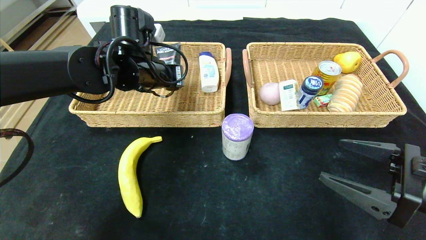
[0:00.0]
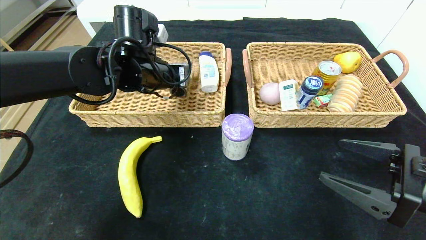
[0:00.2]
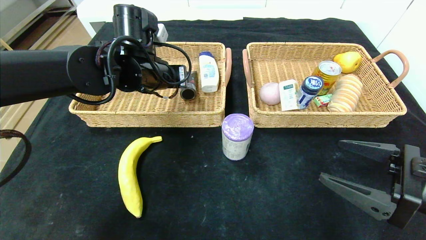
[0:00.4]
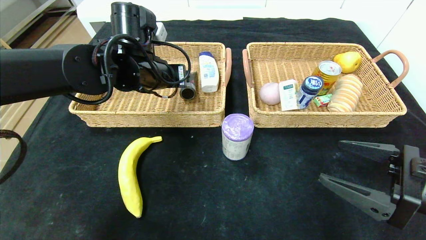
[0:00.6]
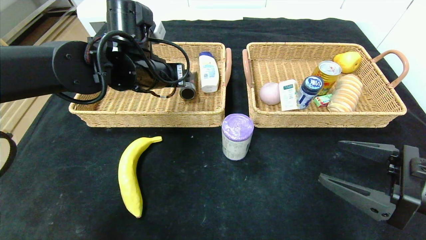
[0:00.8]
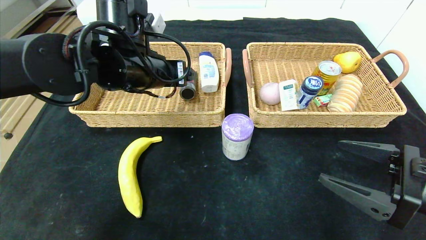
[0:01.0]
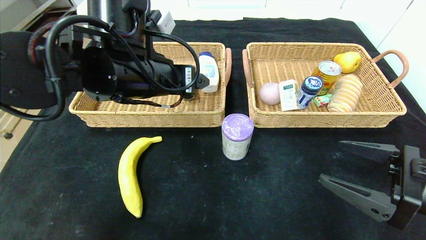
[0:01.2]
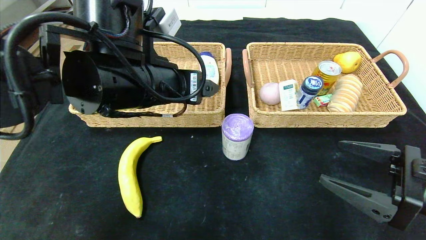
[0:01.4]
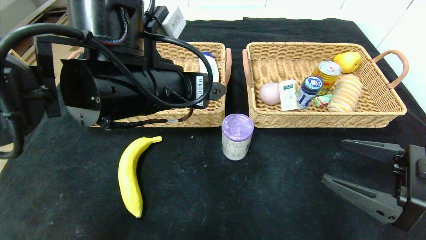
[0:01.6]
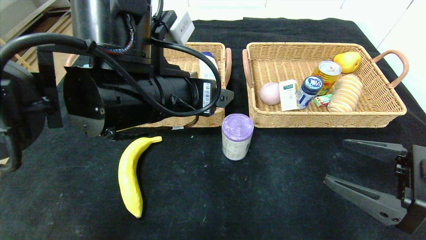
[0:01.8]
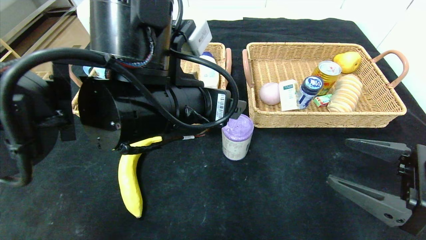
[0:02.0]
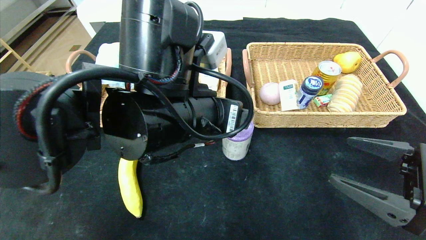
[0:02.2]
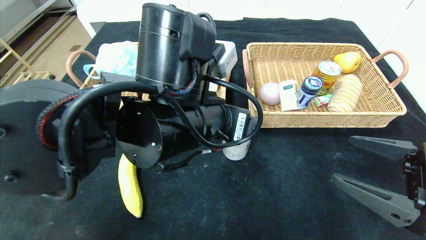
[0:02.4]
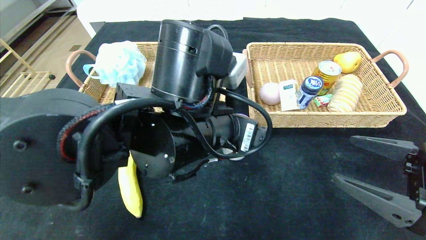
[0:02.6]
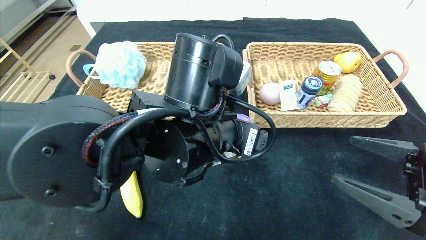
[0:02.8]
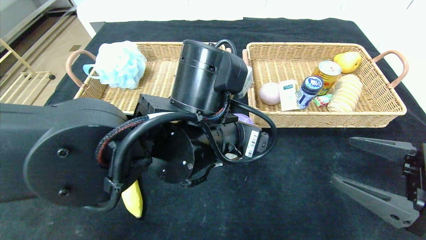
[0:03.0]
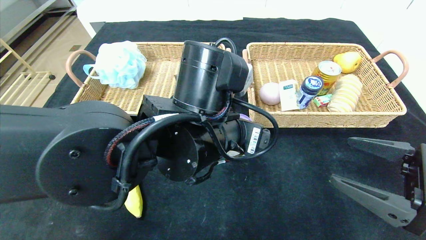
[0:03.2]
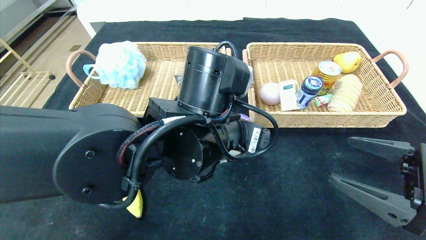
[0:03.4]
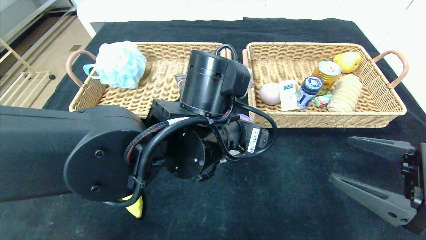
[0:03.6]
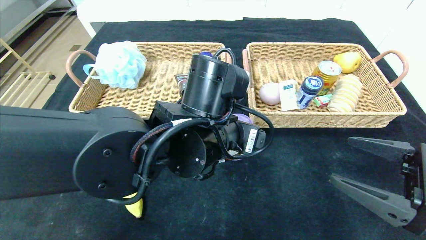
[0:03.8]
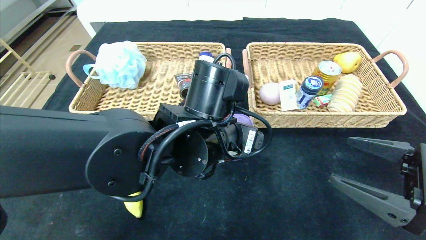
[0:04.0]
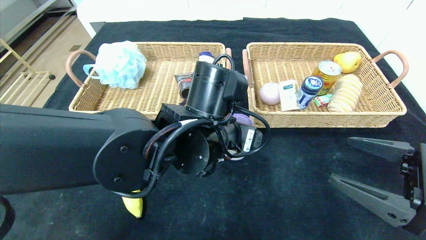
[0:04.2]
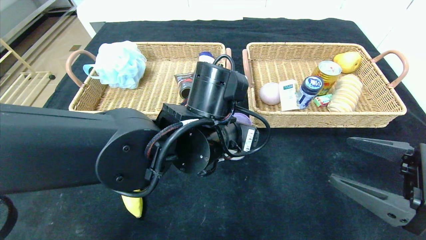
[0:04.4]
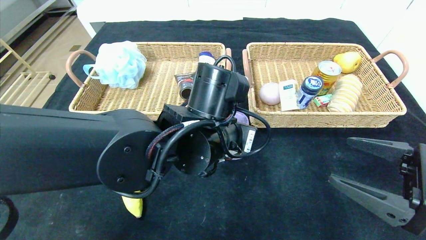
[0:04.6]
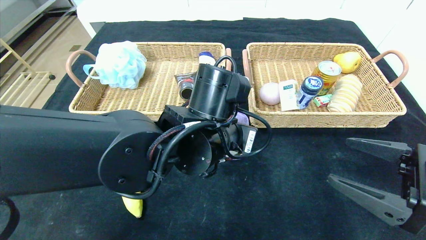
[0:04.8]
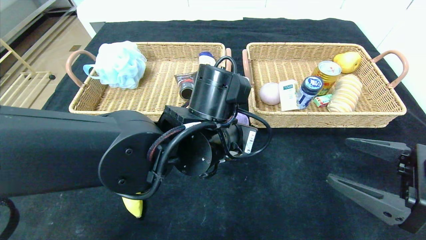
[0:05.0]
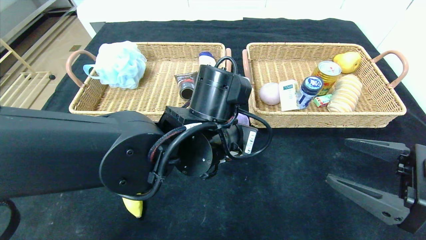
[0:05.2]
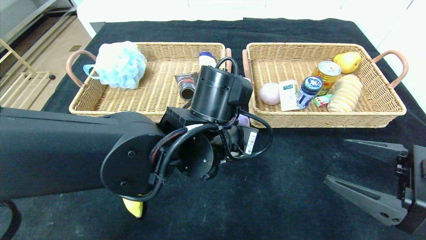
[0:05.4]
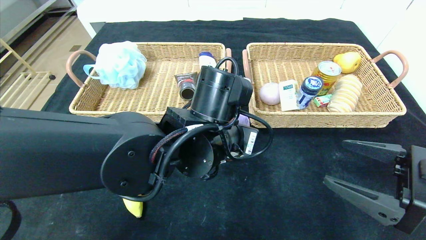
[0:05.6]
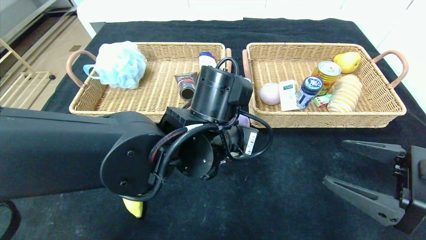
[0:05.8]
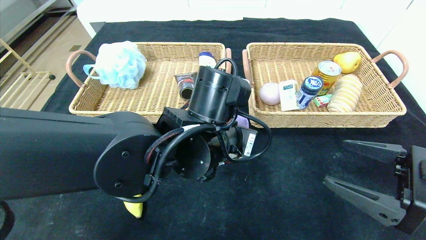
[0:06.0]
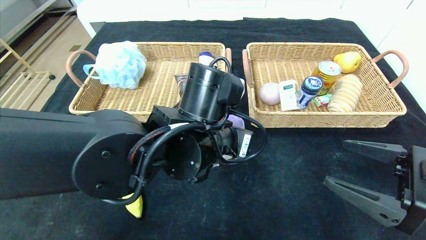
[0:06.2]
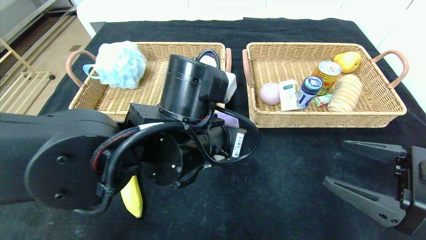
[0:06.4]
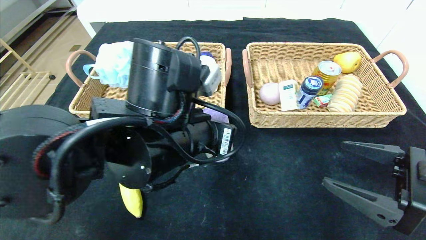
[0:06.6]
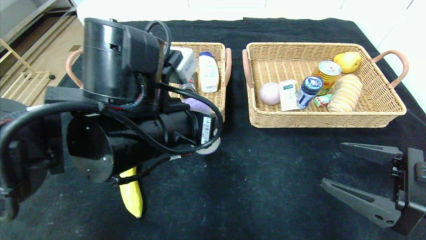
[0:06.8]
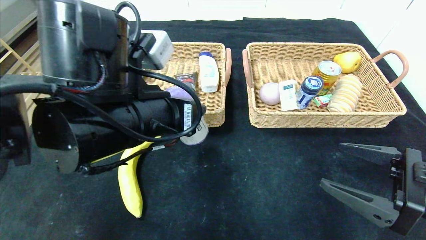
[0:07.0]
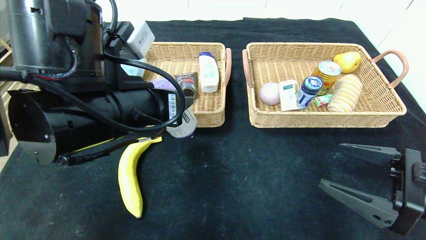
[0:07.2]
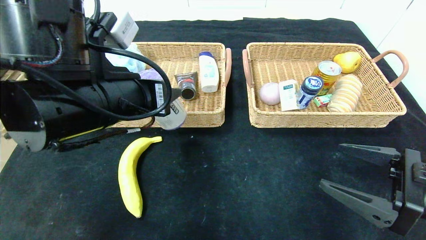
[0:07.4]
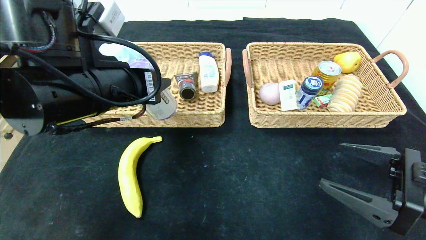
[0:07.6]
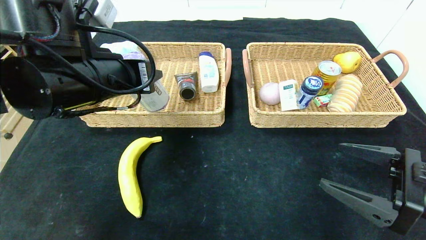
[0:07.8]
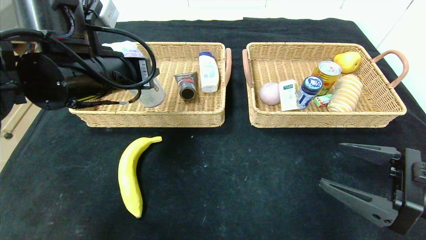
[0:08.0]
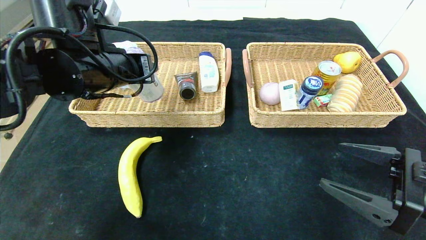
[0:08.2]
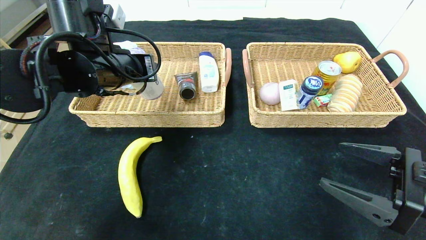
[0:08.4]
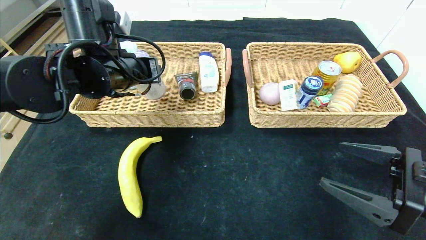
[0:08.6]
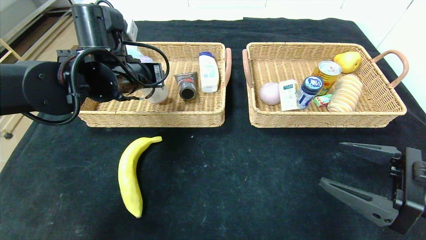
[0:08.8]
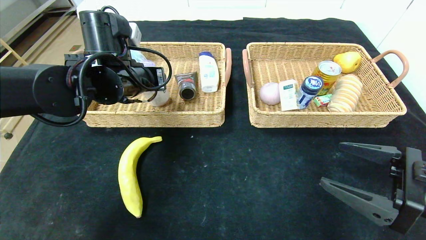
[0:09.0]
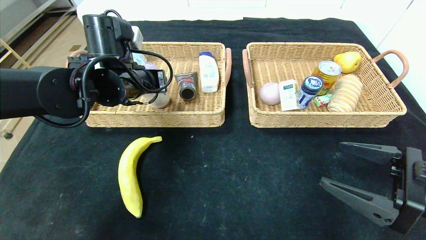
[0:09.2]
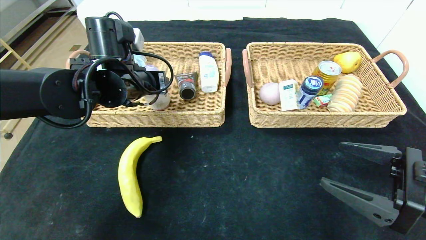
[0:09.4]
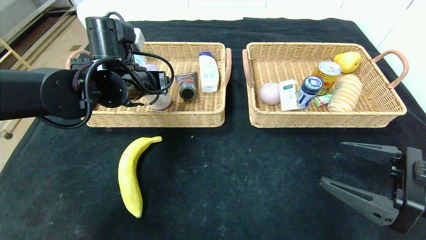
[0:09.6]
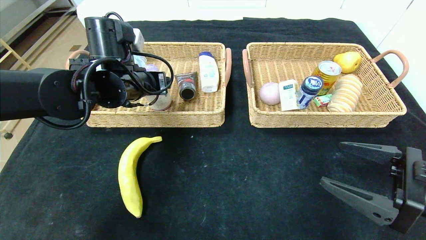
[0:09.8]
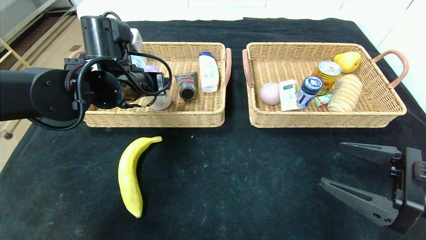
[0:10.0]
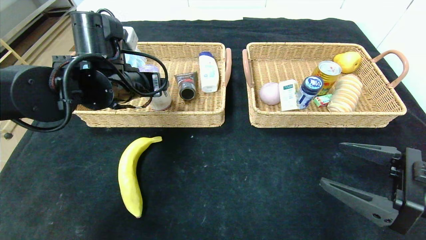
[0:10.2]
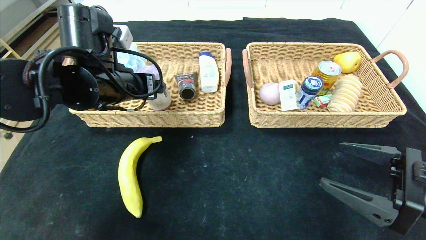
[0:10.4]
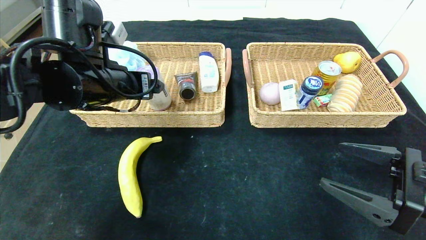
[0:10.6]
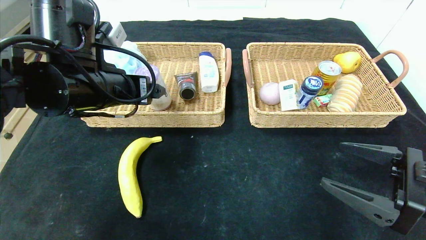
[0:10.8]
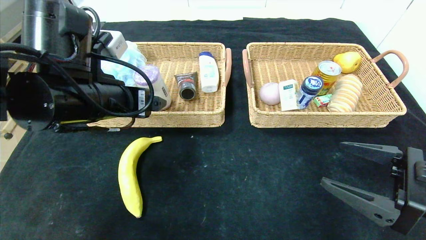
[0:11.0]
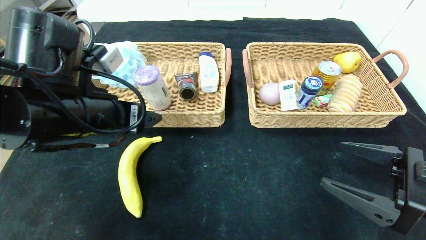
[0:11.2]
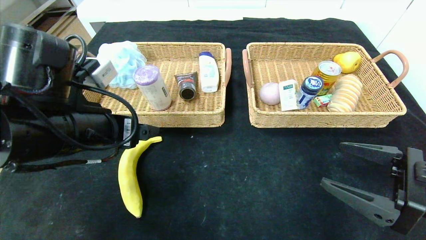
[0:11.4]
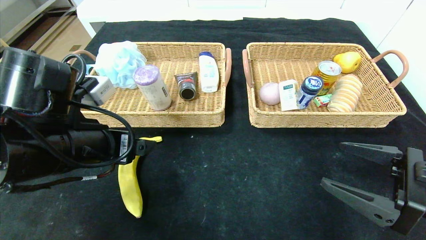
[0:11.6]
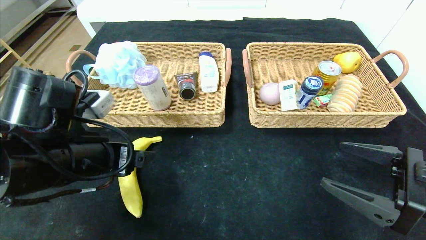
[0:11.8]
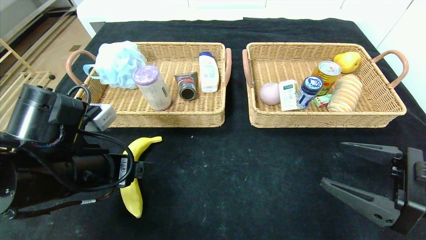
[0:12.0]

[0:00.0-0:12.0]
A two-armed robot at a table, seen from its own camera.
Step, 0:00.6 to 0:10.2: Grasp the purple garbage bag and put it in the left basket.
0:00.0 to 0:01.6: The left gripper goes some 15 cm backward, and opens up.
0:01.6 to 0:03.0: The left gripper travels to the right and downward by approximately 10 cm.
0:03.0 to 0:04.4: The grippers move only a little.
0:04.4 to 0:06.0: Both grippers stay about where they are.
0:06.0 to 0:07.6: The left gripper travels to the left and upward by approximately 15 cm.
0:07.6 to 0:09.0: The left gripper is displaced forward by approximately 10 cm.
0:09.0 to 0:10.4: The left gripper opens.
0:10.4 to 0:12.0: The left gripper moves backward and downward, roughly 15 cm.

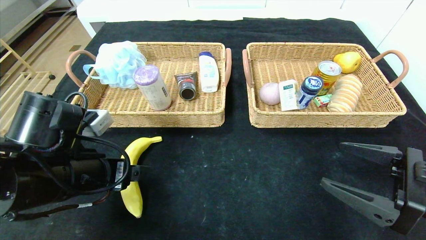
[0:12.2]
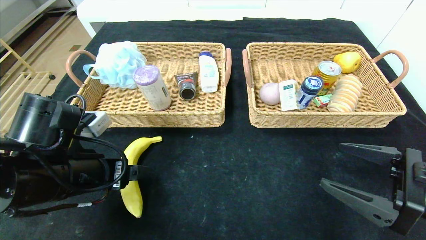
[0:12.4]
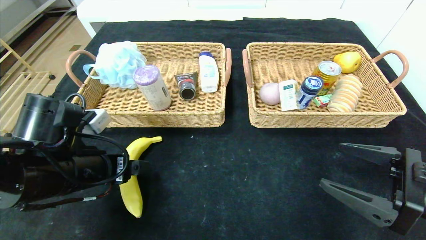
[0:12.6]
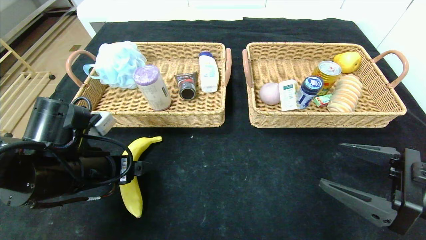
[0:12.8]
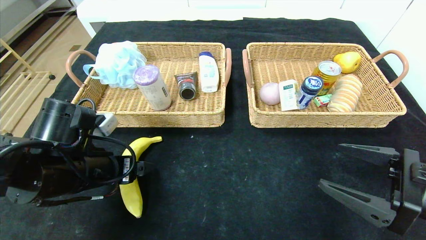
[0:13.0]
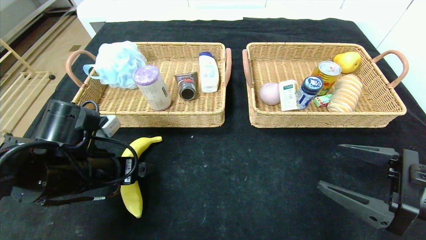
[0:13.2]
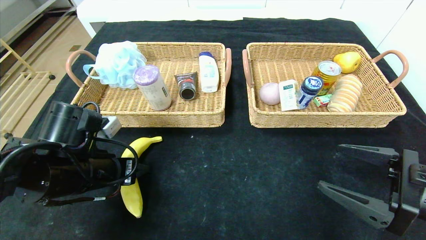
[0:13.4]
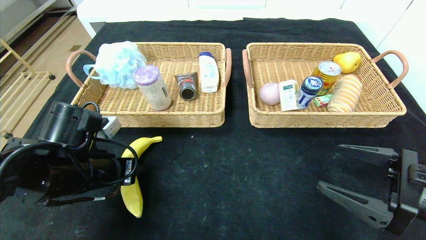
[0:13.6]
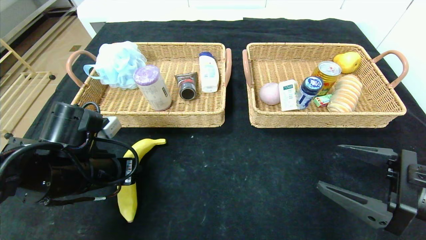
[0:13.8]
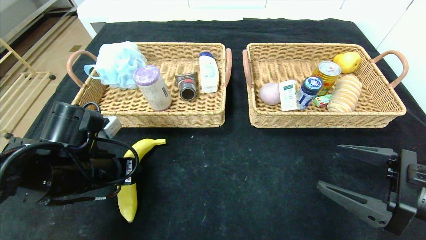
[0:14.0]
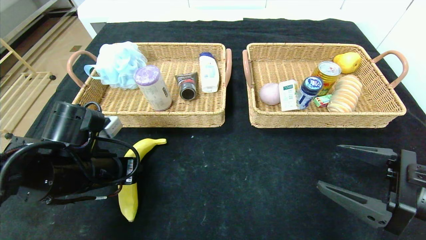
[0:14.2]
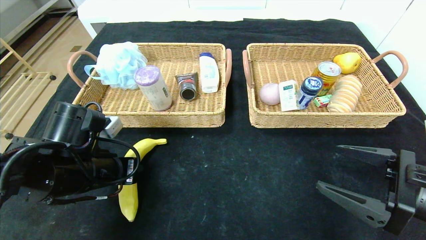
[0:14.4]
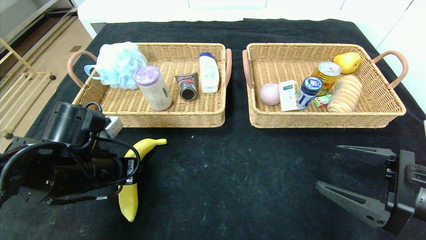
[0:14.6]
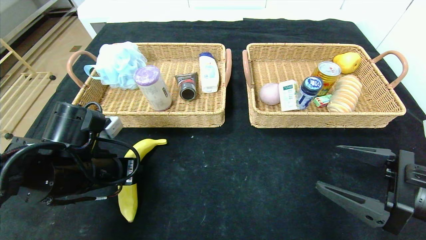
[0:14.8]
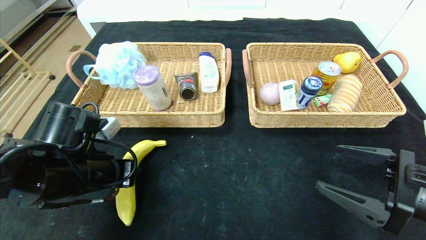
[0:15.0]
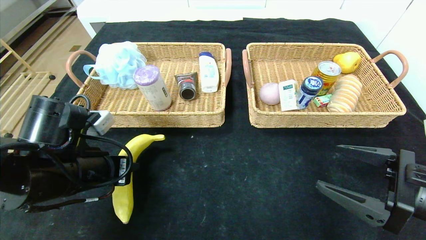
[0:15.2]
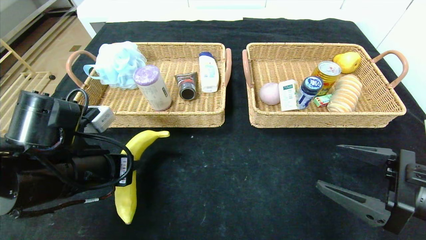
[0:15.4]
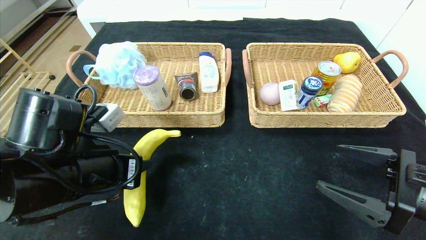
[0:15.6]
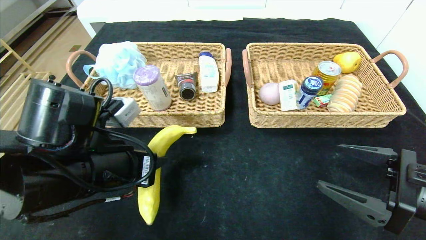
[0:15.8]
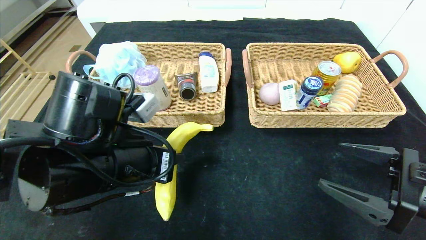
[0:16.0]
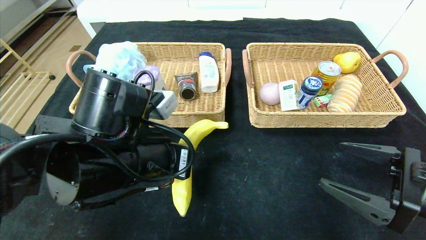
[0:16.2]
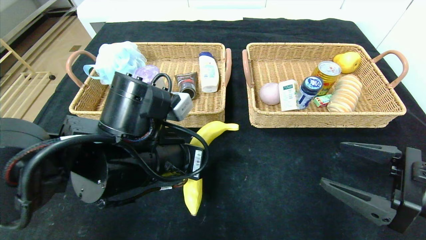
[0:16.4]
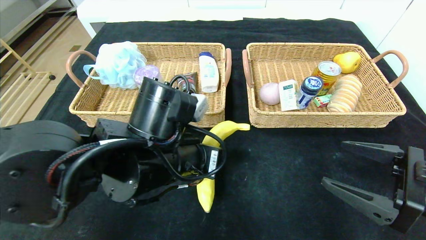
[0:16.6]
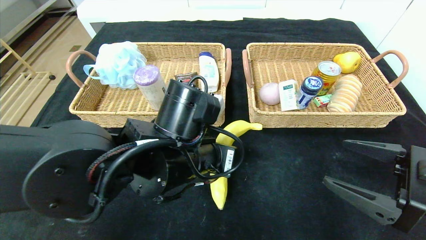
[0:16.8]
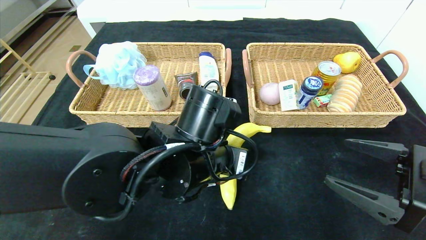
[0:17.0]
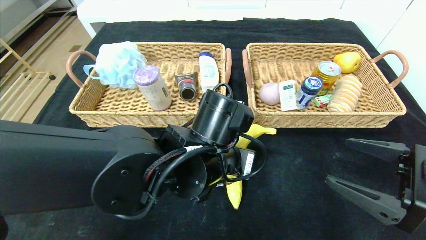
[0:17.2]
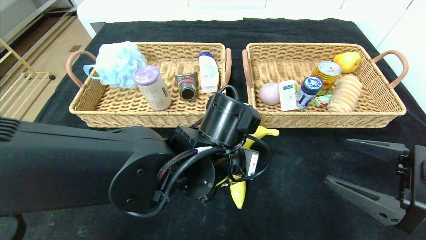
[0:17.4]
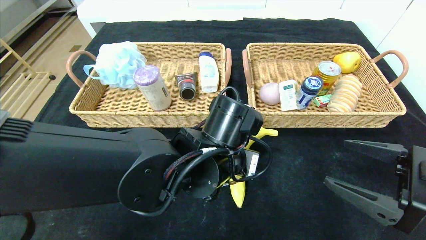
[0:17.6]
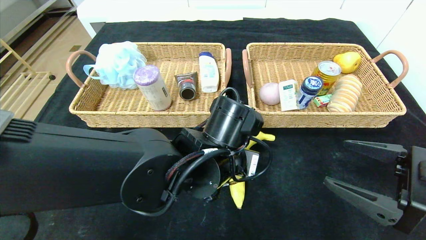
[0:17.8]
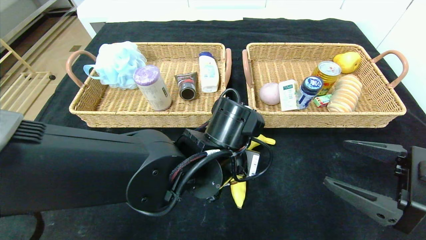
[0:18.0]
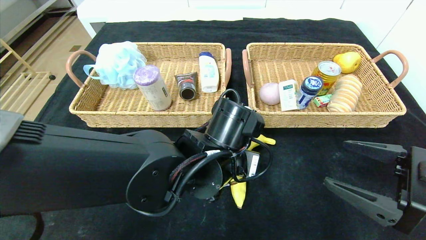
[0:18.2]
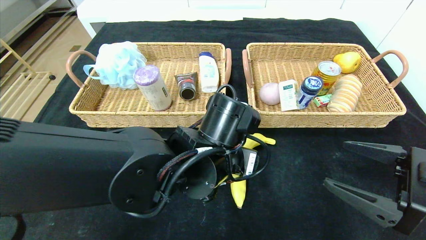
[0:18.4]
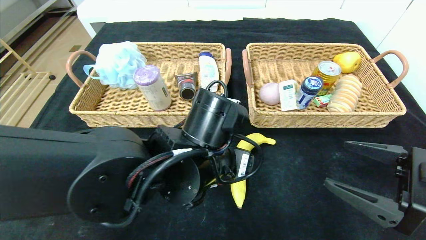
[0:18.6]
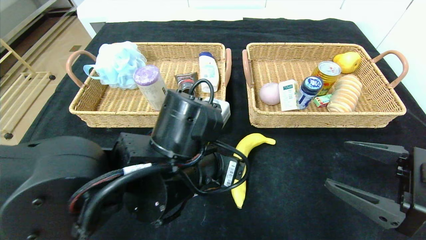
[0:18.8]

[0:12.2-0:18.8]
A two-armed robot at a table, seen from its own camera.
Step, 0:12.2 to 0:18.8: Place the banana in the center of the table.
0:12.2 to 0:13.8: The left gripper closes up.
0:13.8 to 0:15.4: The grippers move only a little.
0:15.4 to 0:17.2: The left gripper travels to the right by approximately 20 cm.
0:17.2 to 0:18.8: The left gripper ends up approximately 5 cm from where it was, and opens up.
